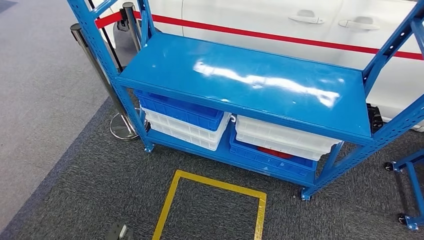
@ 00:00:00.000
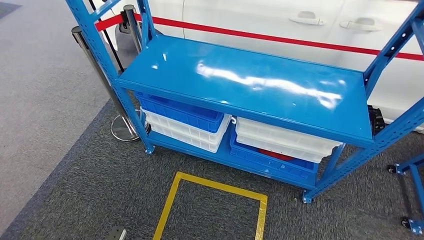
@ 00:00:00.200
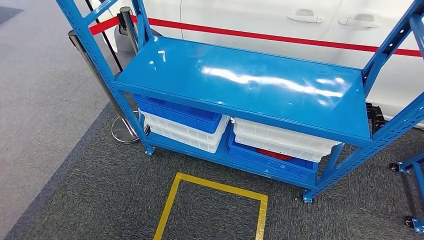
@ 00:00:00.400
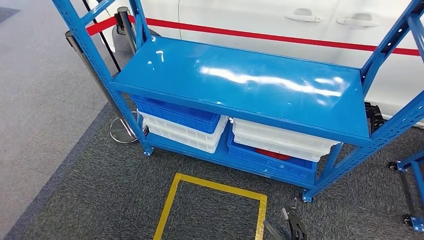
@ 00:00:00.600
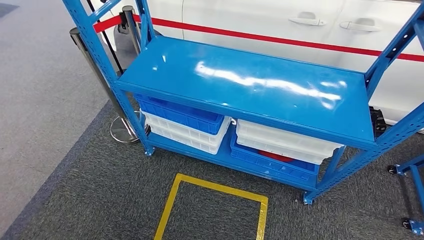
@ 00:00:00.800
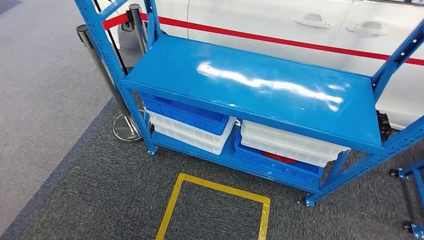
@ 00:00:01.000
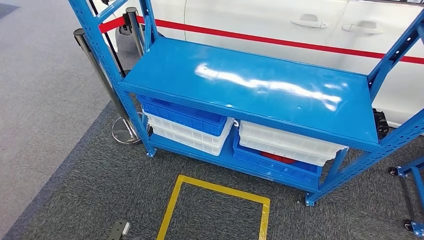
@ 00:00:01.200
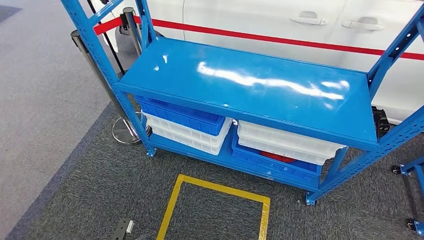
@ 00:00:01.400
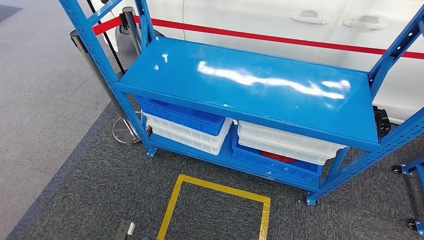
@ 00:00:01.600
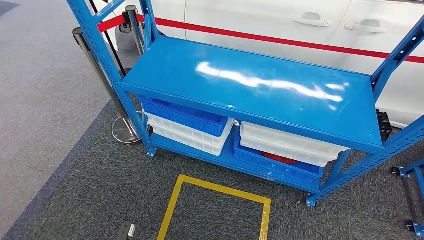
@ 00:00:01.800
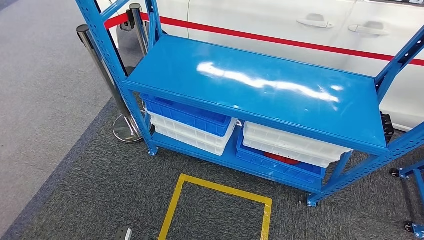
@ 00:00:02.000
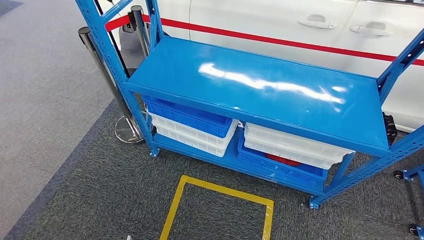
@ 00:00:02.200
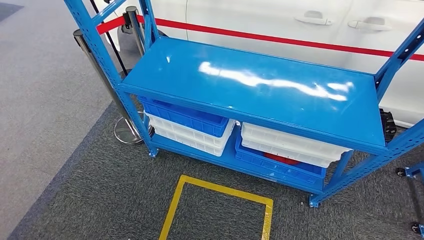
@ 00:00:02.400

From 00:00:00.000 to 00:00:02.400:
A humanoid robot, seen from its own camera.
Step, from 00:00:00.000 to 00:00:02.400: Move to the initial position of the shelf.
From 00:00:01.200 to 00:00:02.400: The right hand heads forward, covering about 10 cm, while the left hand moves approximately 5 cm.
